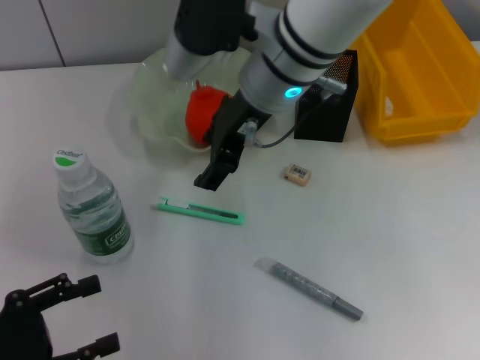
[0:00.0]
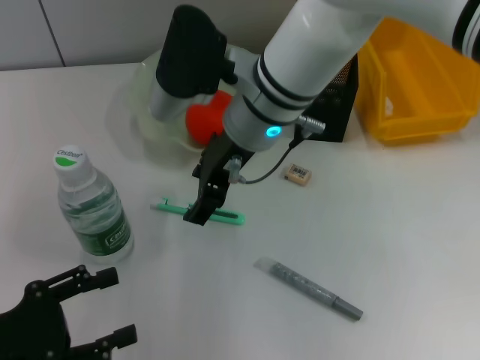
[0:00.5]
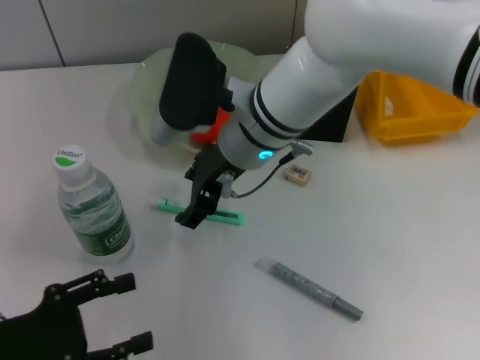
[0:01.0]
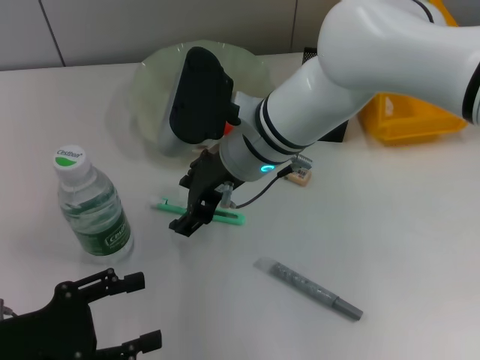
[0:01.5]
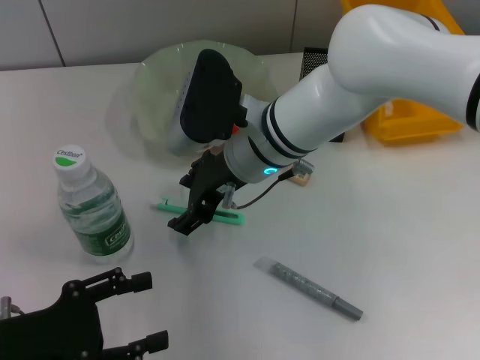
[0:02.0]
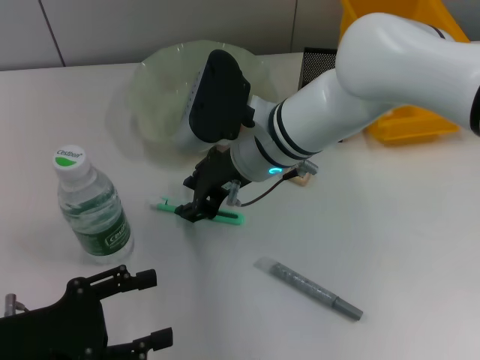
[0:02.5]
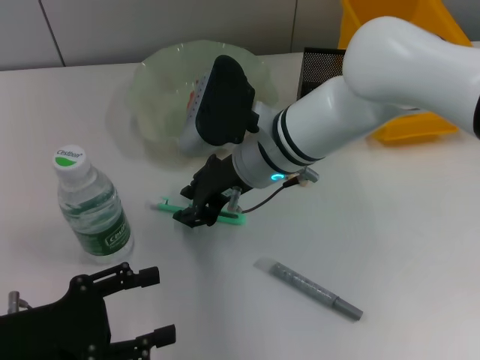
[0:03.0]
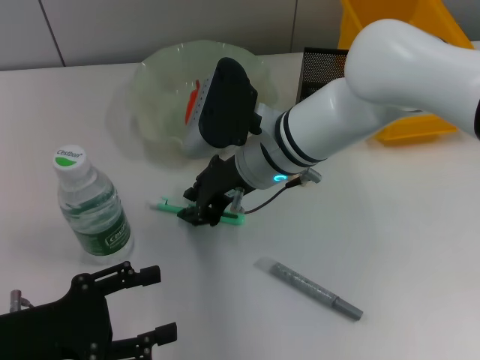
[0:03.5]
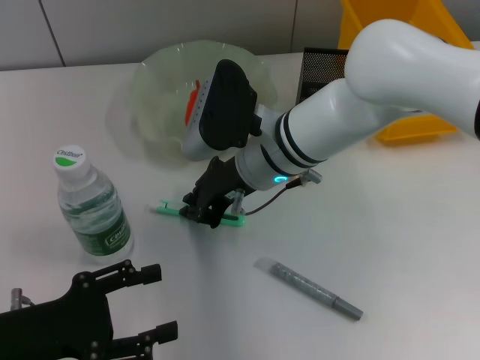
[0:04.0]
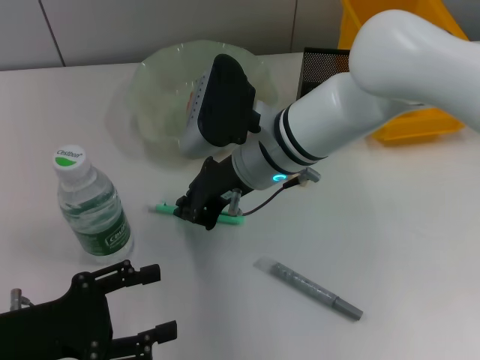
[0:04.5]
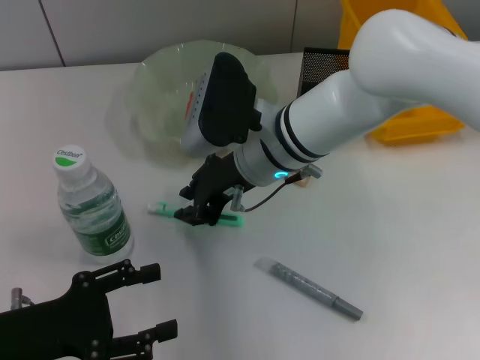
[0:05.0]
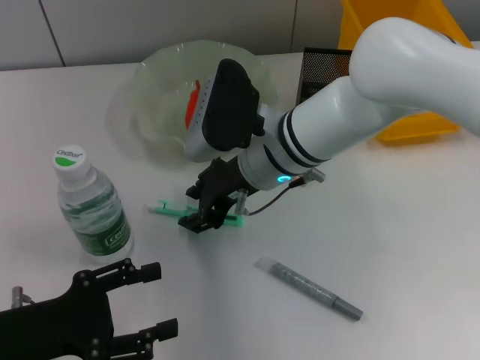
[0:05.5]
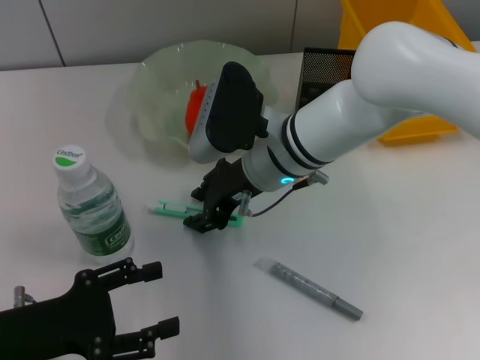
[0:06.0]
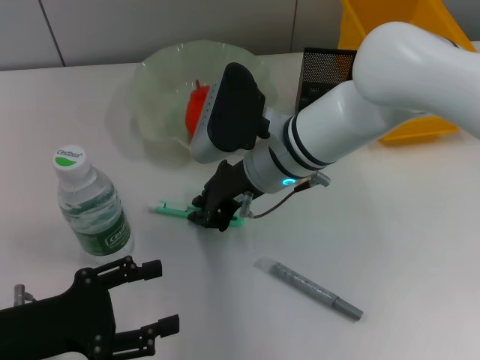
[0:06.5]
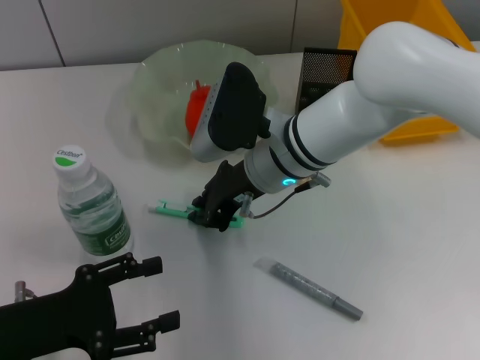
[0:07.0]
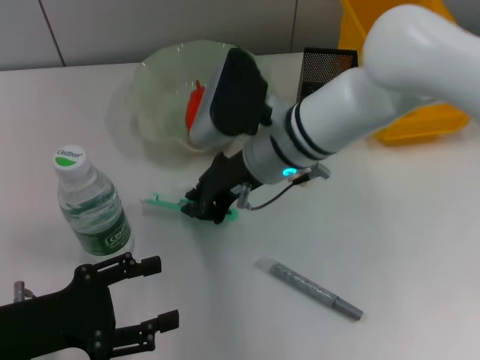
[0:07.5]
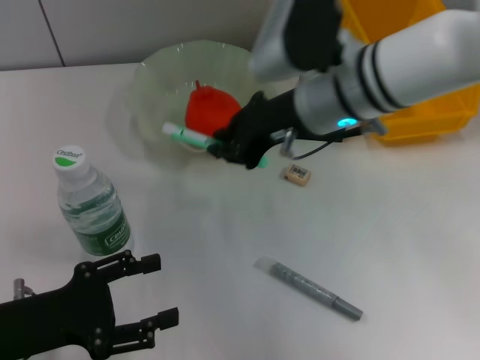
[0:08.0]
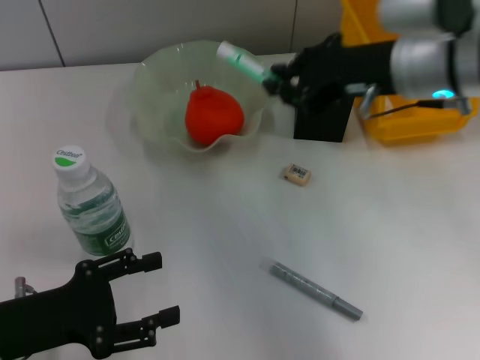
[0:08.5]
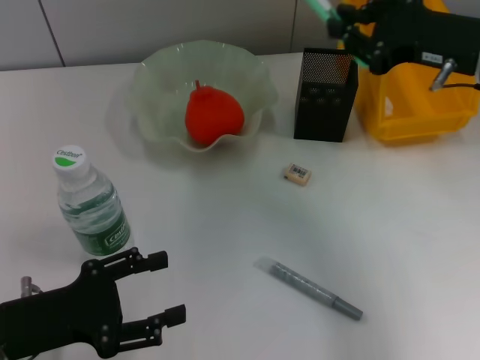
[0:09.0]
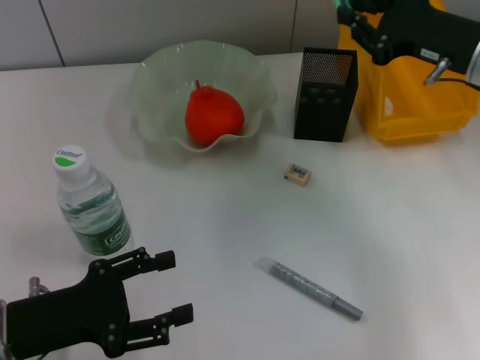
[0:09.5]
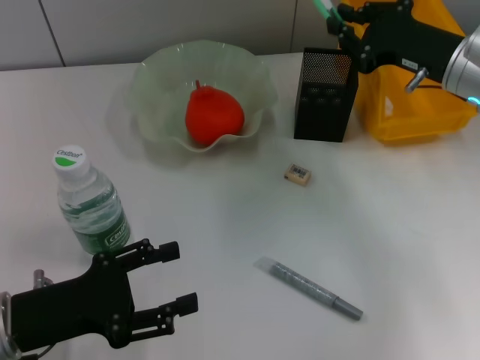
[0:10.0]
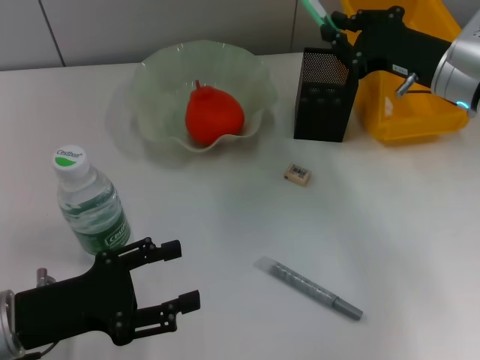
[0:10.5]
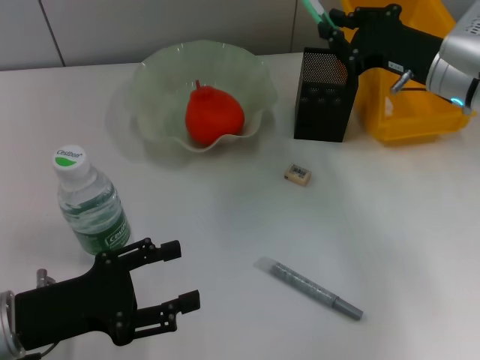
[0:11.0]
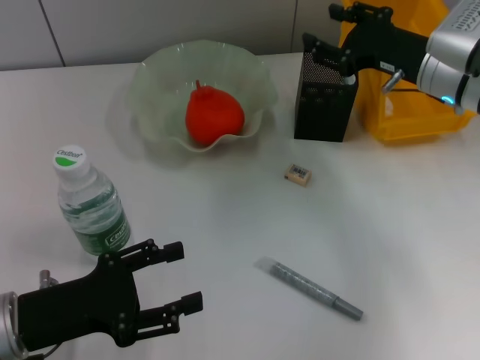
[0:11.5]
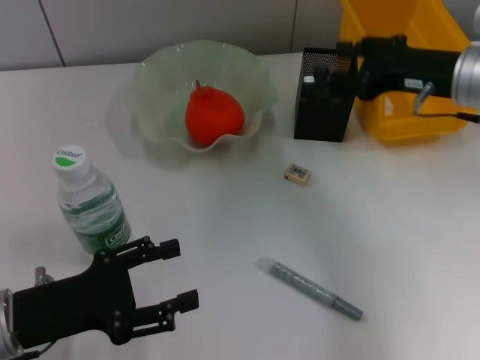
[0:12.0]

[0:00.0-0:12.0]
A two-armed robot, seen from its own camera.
Step, 0:00.0 to 0:07.0: Grab the blue utility knife with the right hand.
Step, 0:07.5 to 0:11.0: Place the blue utility knife into the pen holder with the right hand.
0:00.0 to 0:02.0: The right gripper is displaced downward by roughly 10 cm.
0:02.0 to 0:04.0: The right gripper closes.
0:04.0 to 0:06.0: The right gripper opens up.
0:06.0 to 0:08.0: The right gripper heads upward and to the right, covering roughly 10 cm, and closes up.
0:08.0 to 0:10.0: The right gripper goes roughly 15 cm to the right.
0:10.0 to 0:12.0: The right gripper opens up.

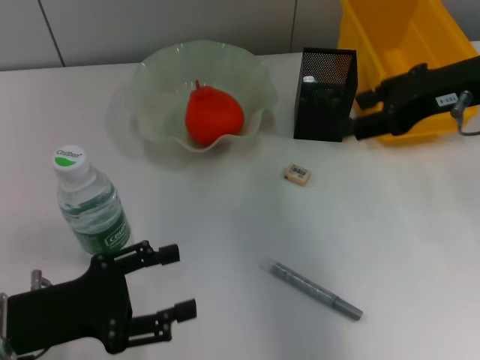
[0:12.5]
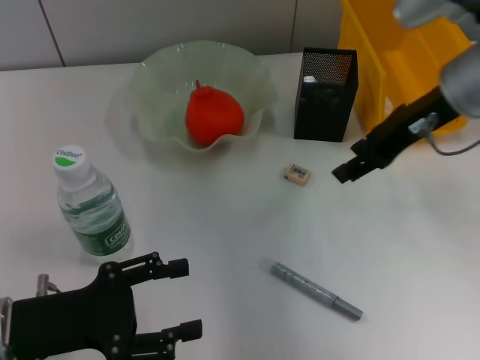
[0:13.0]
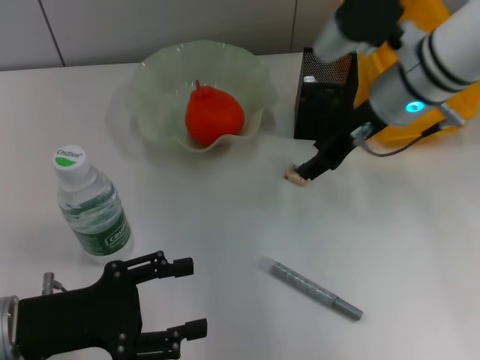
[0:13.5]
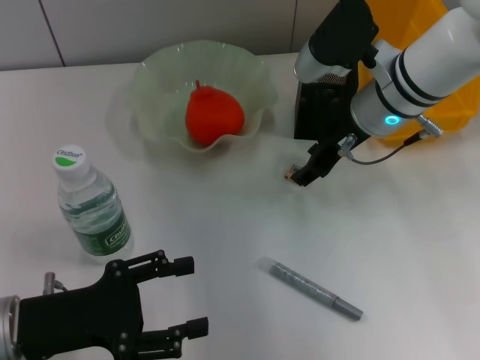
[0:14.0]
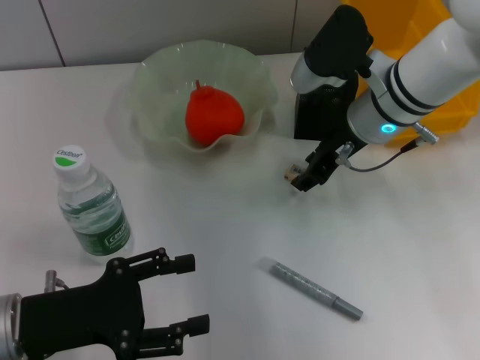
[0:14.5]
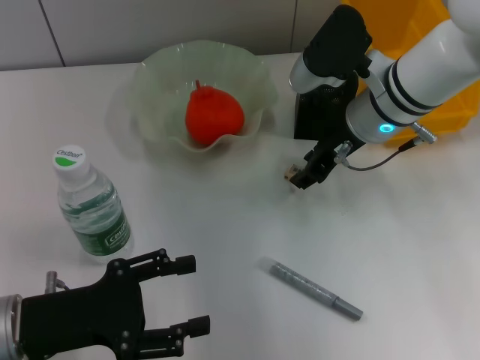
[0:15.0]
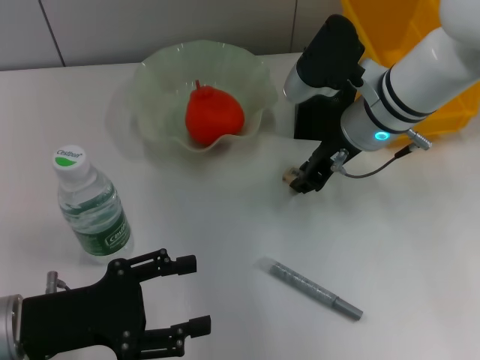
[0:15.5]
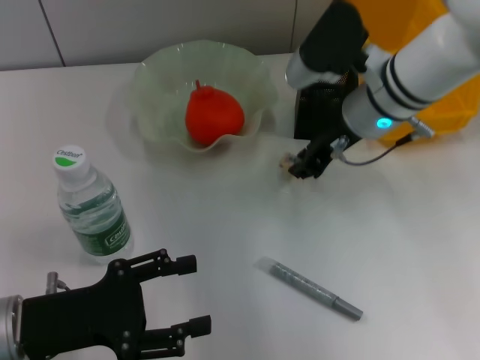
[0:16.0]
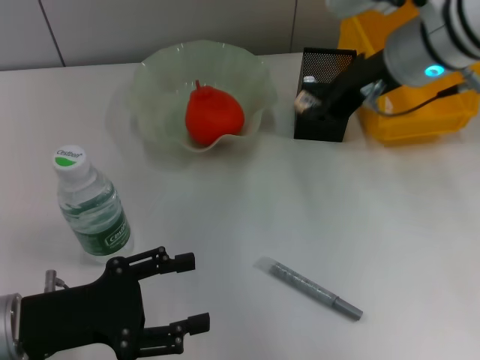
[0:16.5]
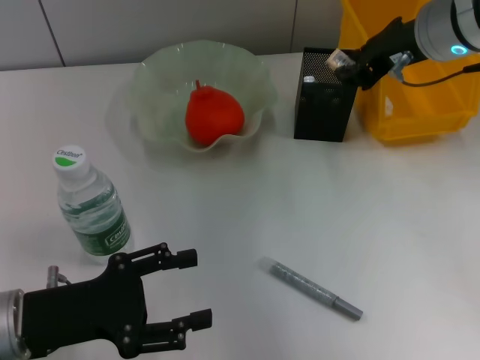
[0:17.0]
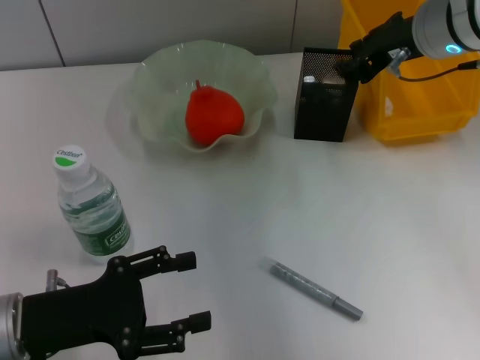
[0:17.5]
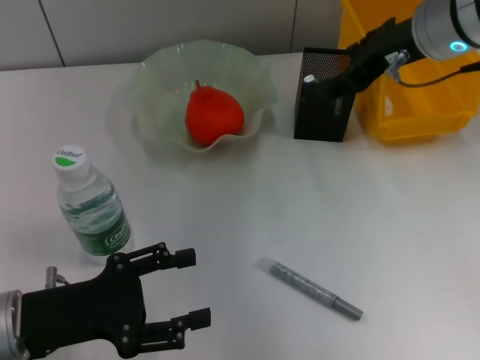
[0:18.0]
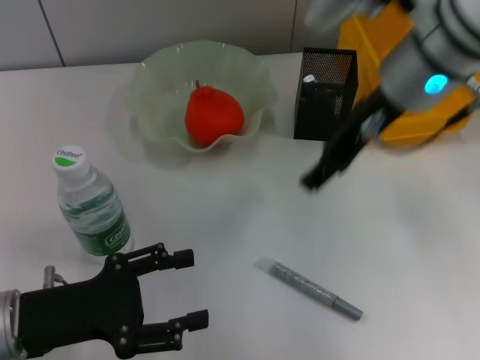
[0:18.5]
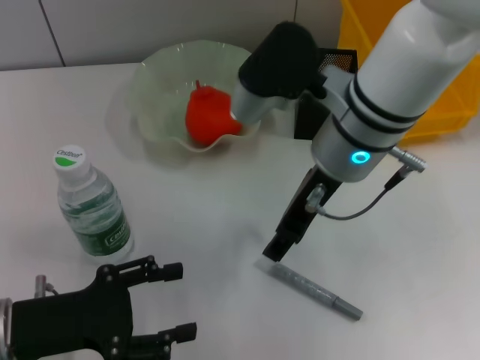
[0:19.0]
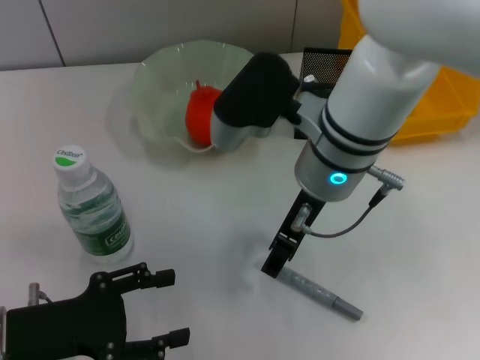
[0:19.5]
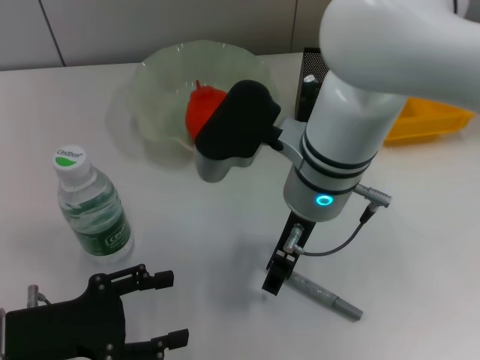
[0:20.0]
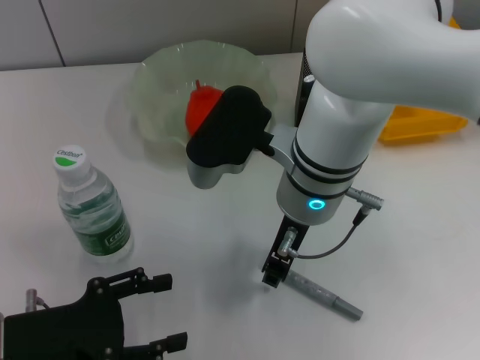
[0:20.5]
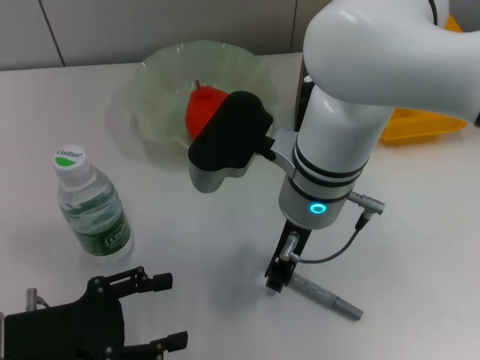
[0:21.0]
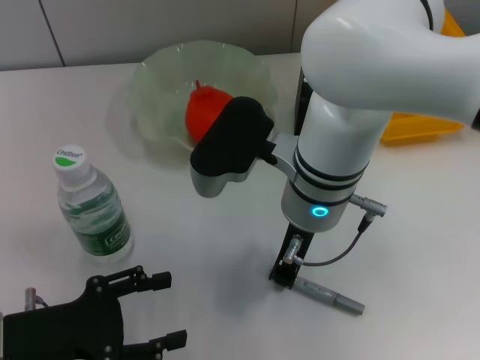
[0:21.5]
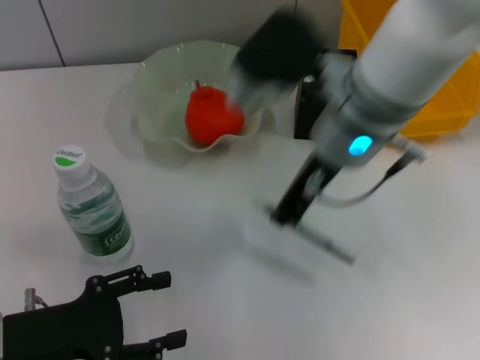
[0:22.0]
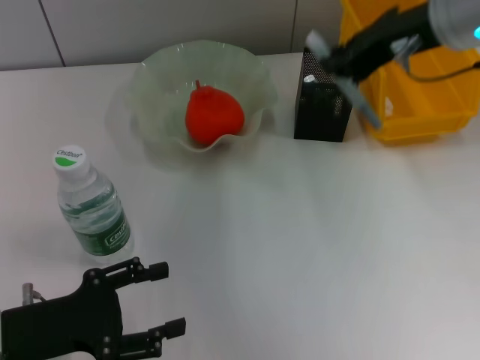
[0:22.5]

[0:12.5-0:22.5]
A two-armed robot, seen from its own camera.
Step, 0:12.5 to 0:15.5: Grab the eraser with the right hand.
Step, 0:16.0 to 0:17.5: Put the eraser into the pen holder with the right hand.
Step, 0:18.0 to 0:21.0: Grab the gray glue with the right hand.
0:12.5 to 0:14.5: The right gripper heads downward, to the left and forward, covering some 15 cm.
0:14.5 to 0:16.5: The right gripper moves upward, roughly 10 cm.
0:16.5 to 0:18.5: The right gripper opens its fingers.
0:18.5 to 0:20.5: The right gripper heads to the left and downward, covering about 10 cm.
0:20.5 to 0:22.5: The right gripper moves to the right and upward, approximately 20 cm, and closes its fingers.

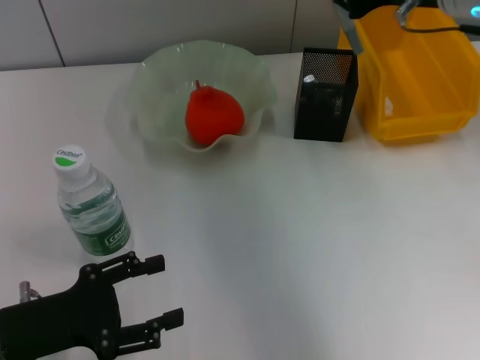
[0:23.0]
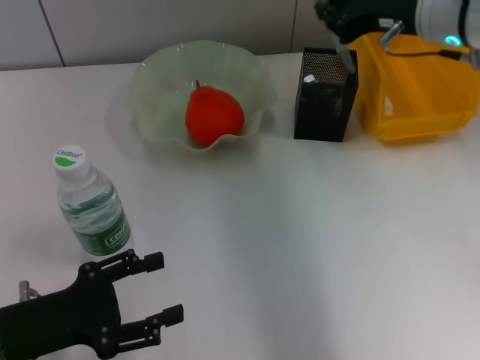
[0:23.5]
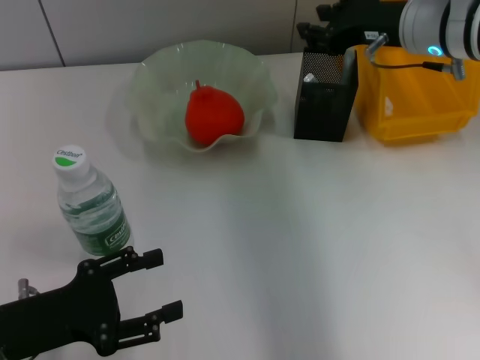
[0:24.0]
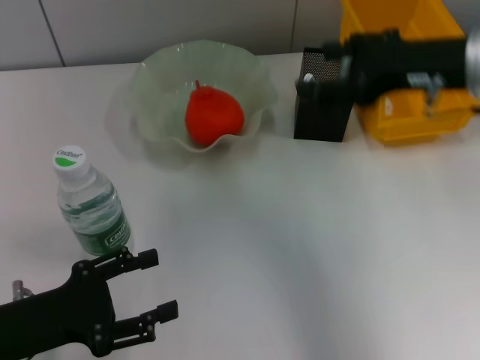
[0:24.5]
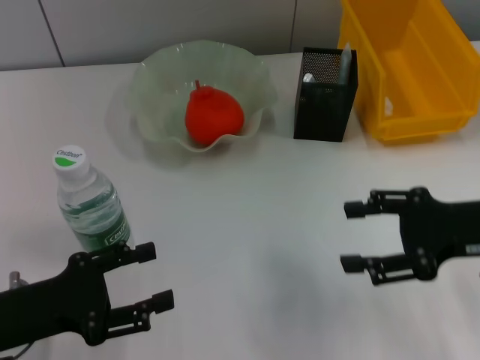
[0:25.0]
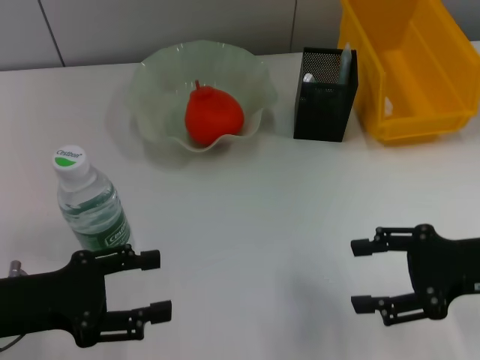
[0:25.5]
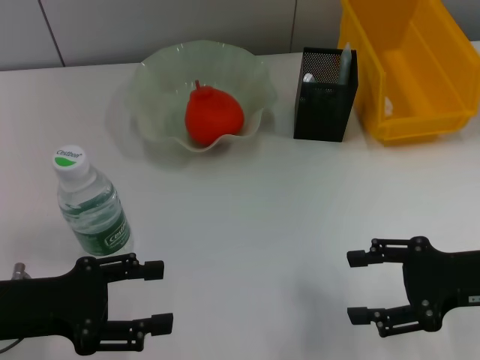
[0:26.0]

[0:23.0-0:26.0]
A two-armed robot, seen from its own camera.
0:23.0 to 0:24.5: The right gripper moves backward, approximately 5 cm, and opens.
0:24.5 to 0:26.0: The right gripper heads downward and backward, covering some 15 cm.
